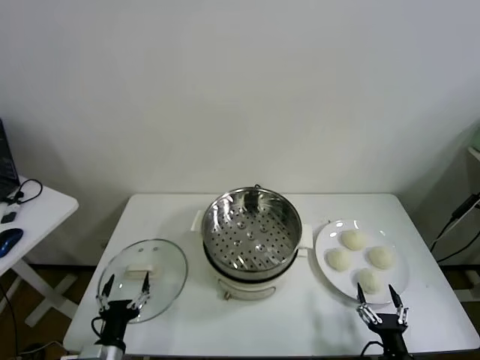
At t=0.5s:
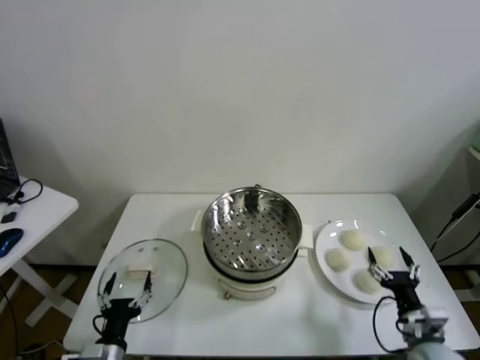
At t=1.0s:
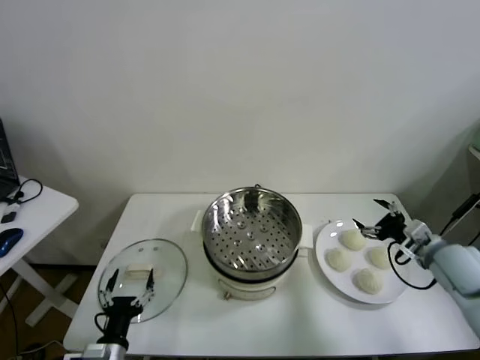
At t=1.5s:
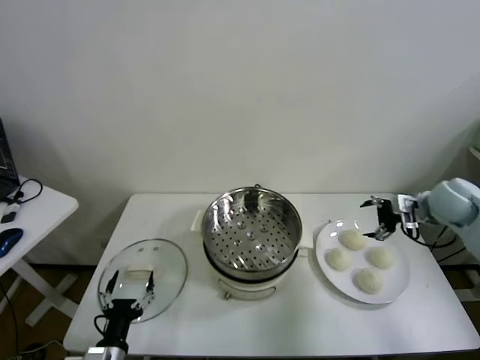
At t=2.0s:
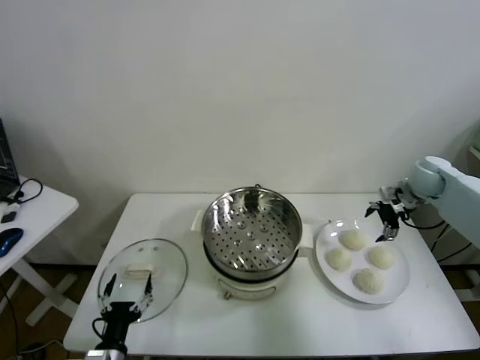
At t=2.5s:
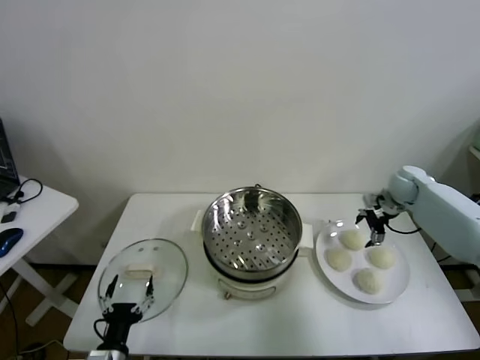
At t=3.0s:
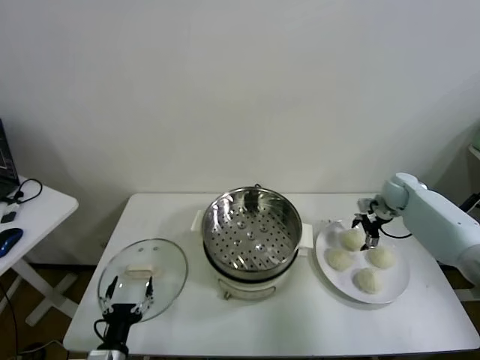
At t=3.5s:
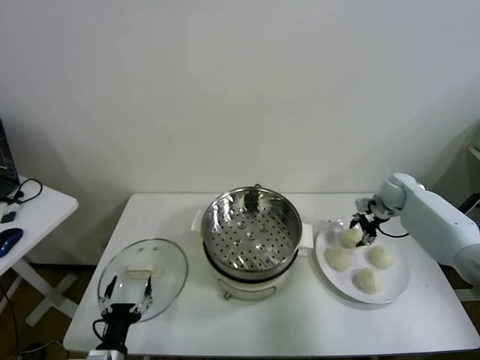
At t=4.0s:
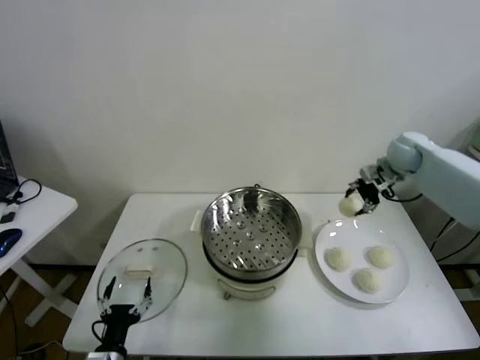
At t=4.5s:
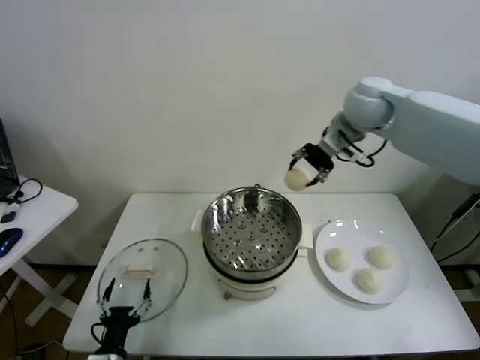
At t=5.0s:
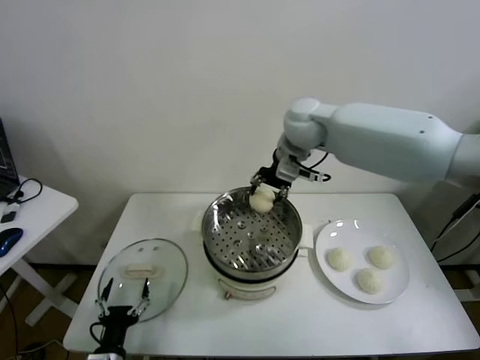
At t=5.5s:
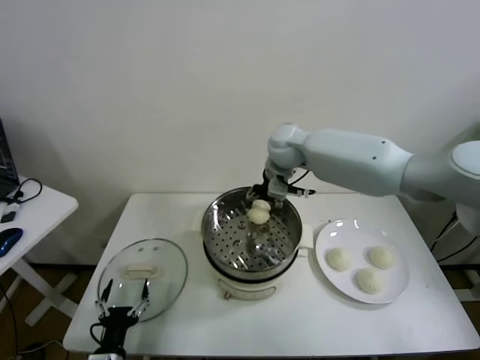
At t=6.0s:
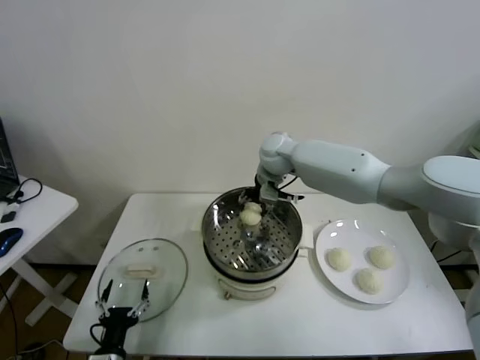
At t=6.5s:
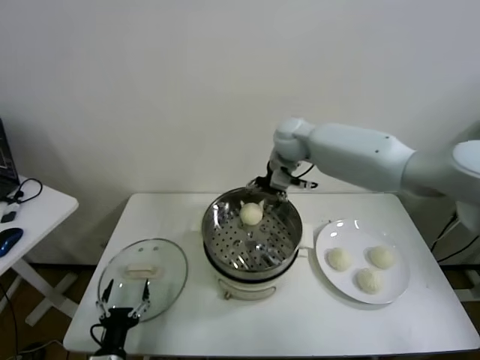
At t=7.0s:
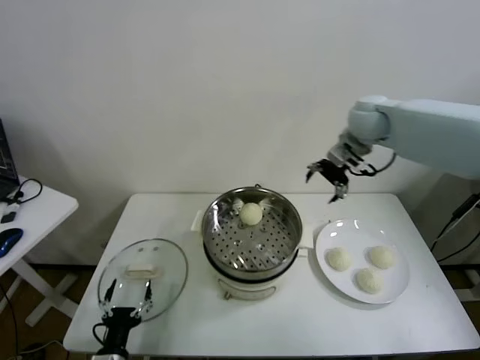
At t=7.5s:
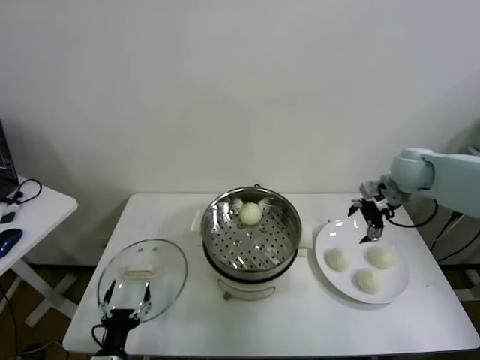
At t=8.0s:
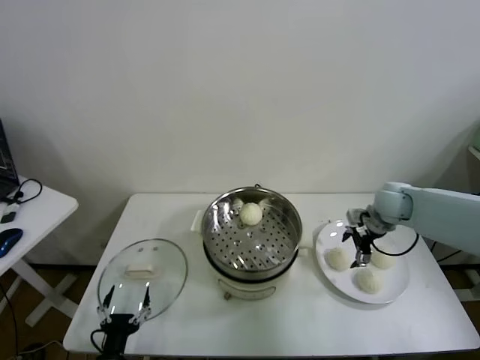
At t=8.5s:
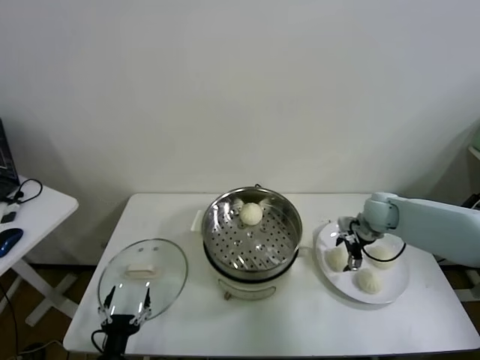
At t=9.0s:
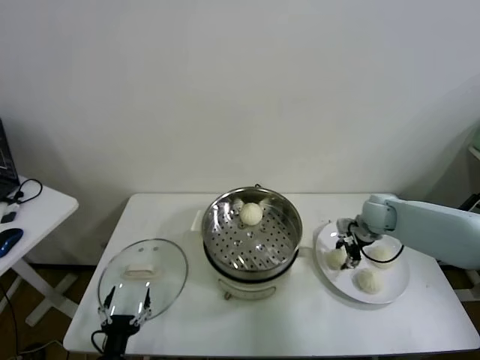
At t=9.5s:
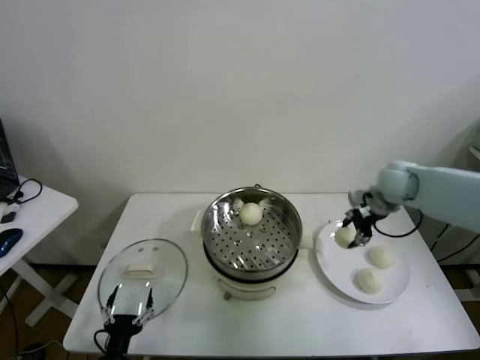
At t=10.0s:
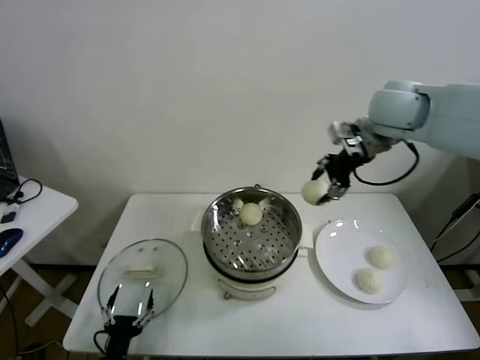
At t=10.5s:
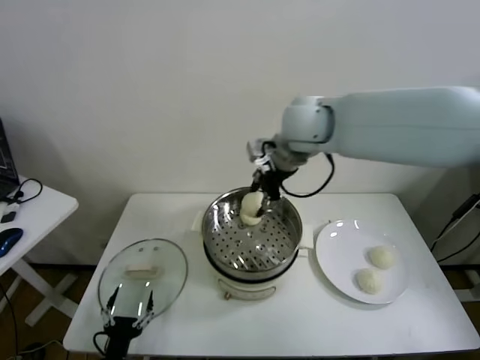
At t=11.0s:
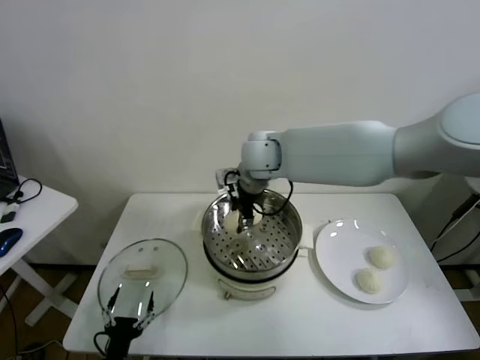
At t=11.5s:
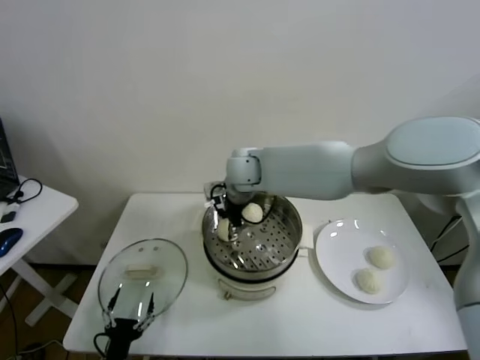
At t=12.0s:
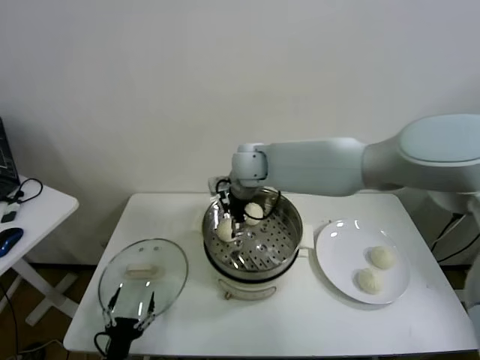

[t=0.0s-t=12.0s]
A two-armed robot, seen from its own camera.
Task of the whole recording: take steamed baozi put them in steamer.
Step, t=0.0s to t=3.5s: Grasp the baozi in the plate with right gripper.
Step, t=4.0s to t=6.0s: Place the baozi on the steamer with right gripper.
Step, t=6.5s to t=9.0s: Grasp the baozi in the plate with right gripper.
Step, t=9.5s to t=11.5s: Place the baozi on the steamer with right gripper.
t=2.0s to t=4.0s: The right gripper heads upward and to the left, covering some 15 cm, and closes.
t=4.0s to t=6.0s: The right gripper moves to the left, some 30 cm.
t=6.0s to t=8.0s: The right gripper shifts approximately 30 cm to the right, and opens up.
t=8.0s to t=10.0s: The right gripper moves upward and to the left, approximately 30 cm, and closes.
t=10.0s to t=12.0s: The right gripper heads to the left and downward, covering about 25 cm, and opens.

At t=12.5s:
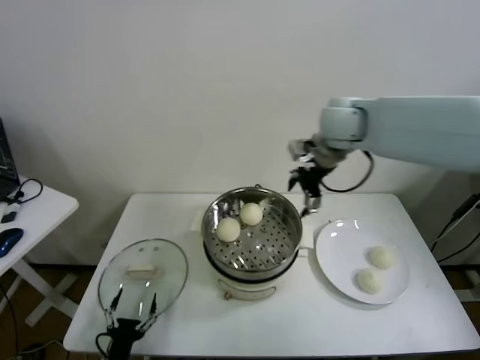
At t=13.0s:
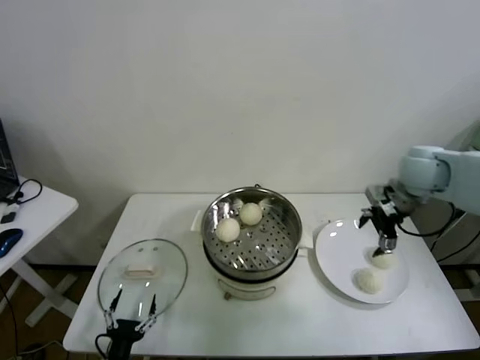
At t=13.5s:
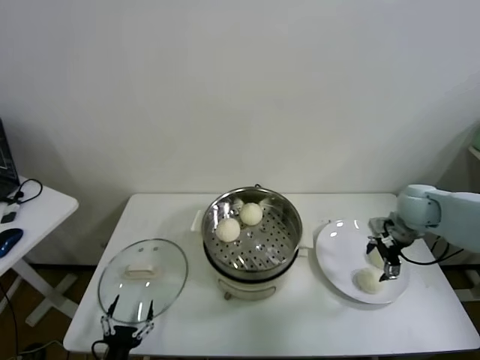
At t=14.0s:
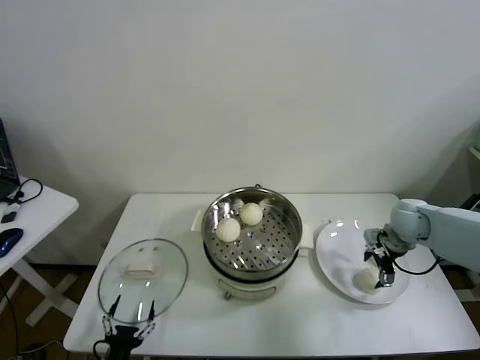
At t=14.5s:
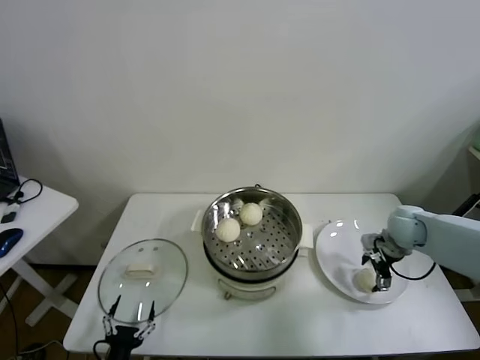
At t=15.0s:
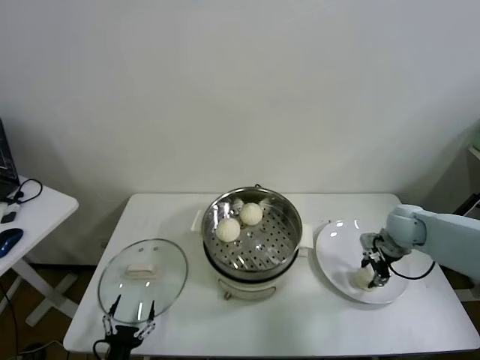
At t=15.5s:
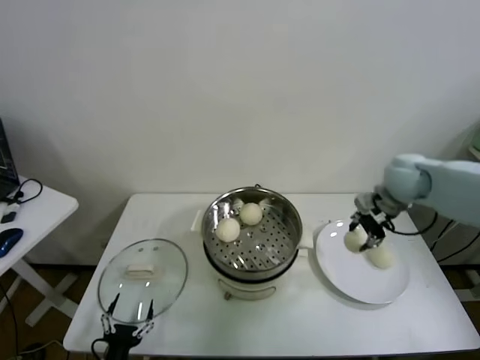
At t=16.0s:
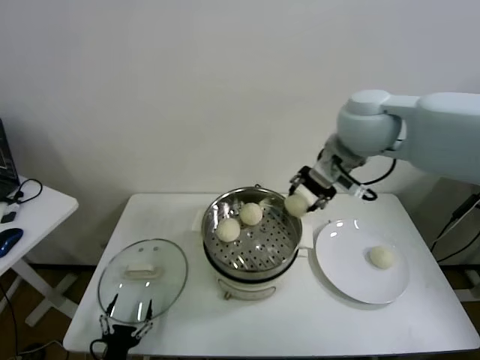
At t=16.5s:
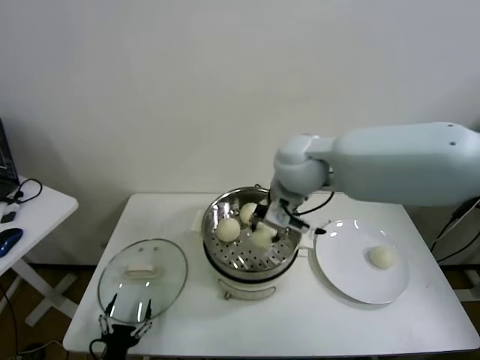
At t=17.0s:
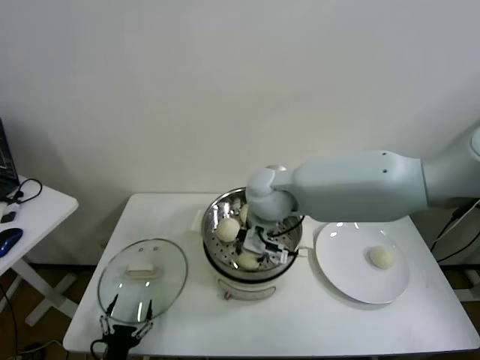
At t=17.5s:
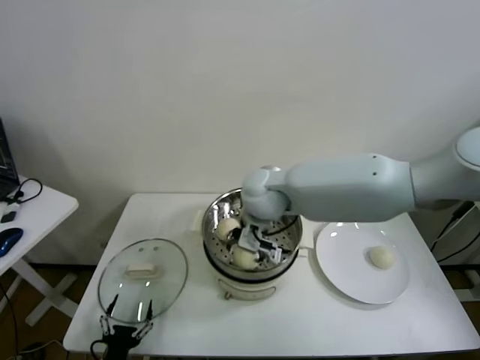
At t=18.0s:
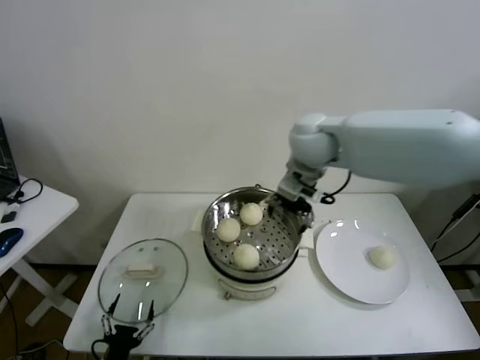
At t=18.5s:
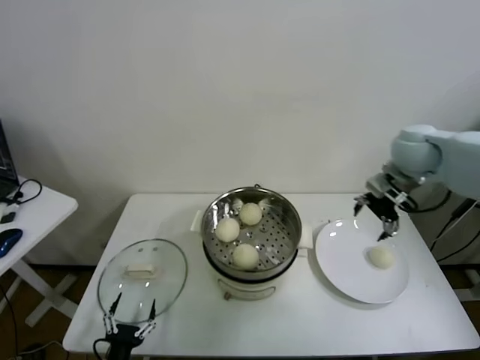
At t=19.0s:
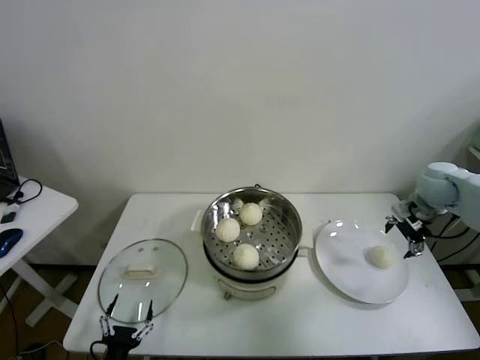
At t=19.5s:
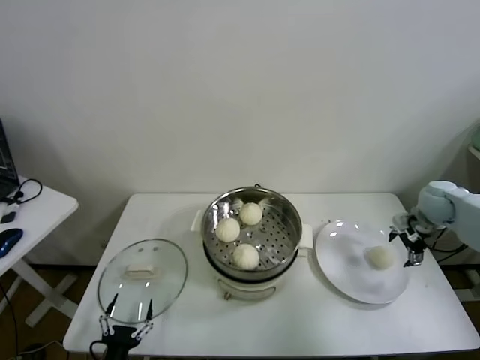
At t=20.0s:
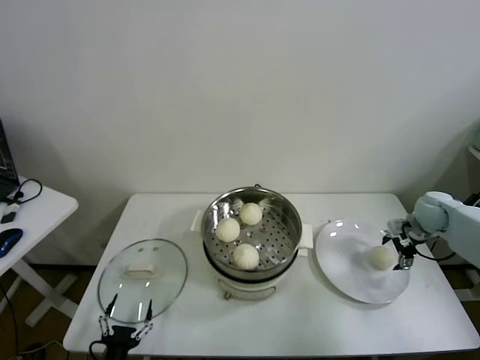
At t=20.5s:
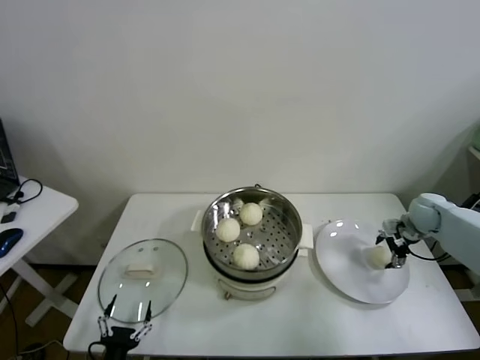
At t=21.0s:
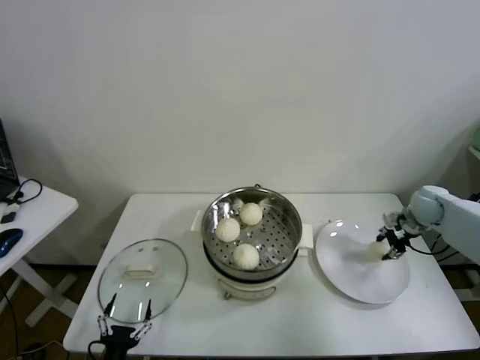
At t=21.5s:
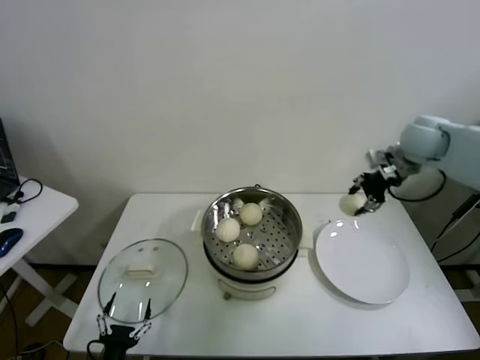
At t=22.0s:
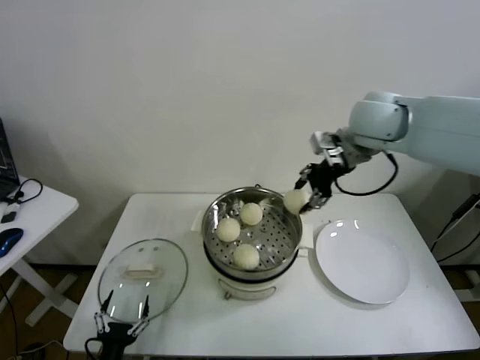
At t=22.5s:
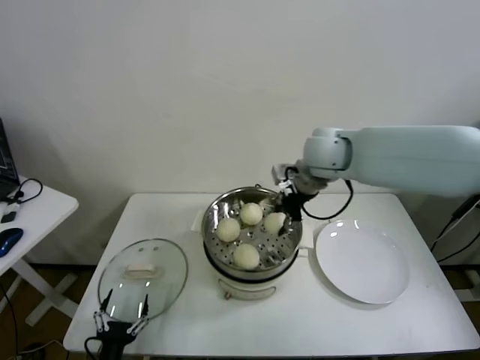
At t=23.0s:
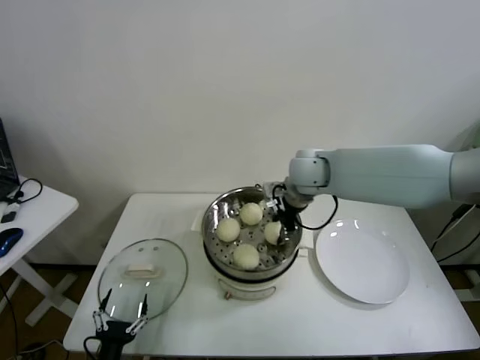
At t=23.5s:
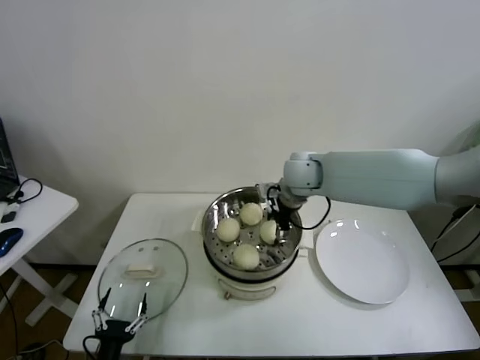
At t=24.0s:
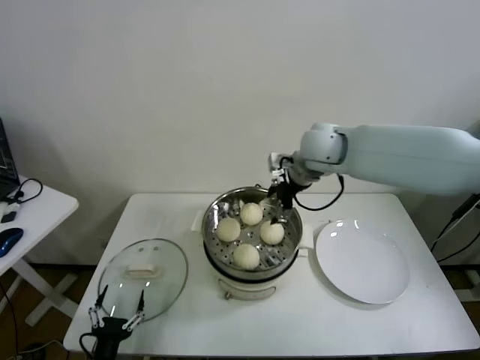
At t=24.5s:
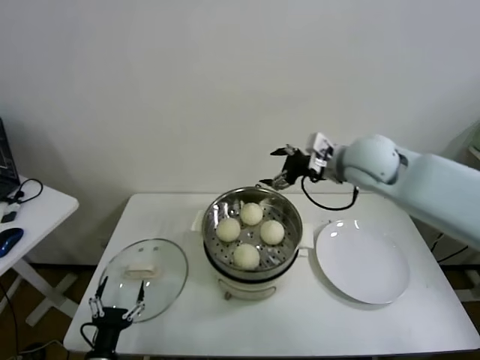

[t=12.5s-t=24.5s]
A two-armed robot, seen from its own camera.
Task of the whole recording: take steamed baozi put them in steamer.
Step, t=12.5s to t=15.0s: Grasp the baozi in the plate with right gripper.
Step, t=15.5s to t=17.5s: Place the baozi on the steamer with right gripper.
Step, t=18.0s to t=20.5s: Grasp the baozi in the plate with right gripper.
Step, t=21.0s to t=23.5s: Place the baozi on the steamer with right gripper.
t=12.5s to t=14.5s: The right gripper shifts about 30 cm downward and to the right.
t=14.5s to t=16.5s: The right gripper travels to the left and upward by roughly 35 cm, and closes up.
t=16.5s to t=18.5s: The right gripper shifts some 25 cm to the right, and opens.
t=18.5s to t=20.5s: The right gripper heads downward and to the right, covering some 25 cm.
t=20.5s to t=22.5s: The right gripper moves to the left and upward, roughly 40 cm, and closes up.
t=22.5s to t=24.5s: The right gripper moves to the right, approximately 5 cm, and opens its fingers.

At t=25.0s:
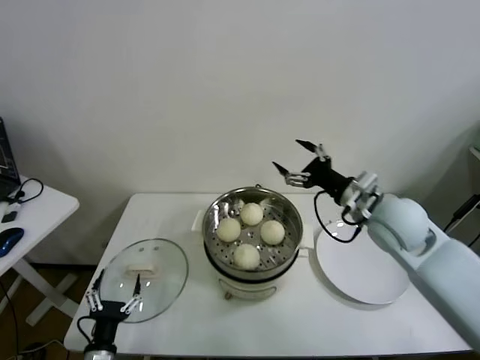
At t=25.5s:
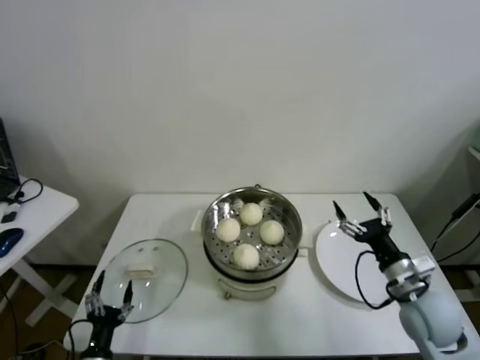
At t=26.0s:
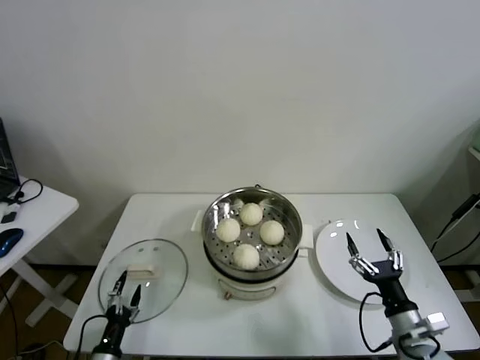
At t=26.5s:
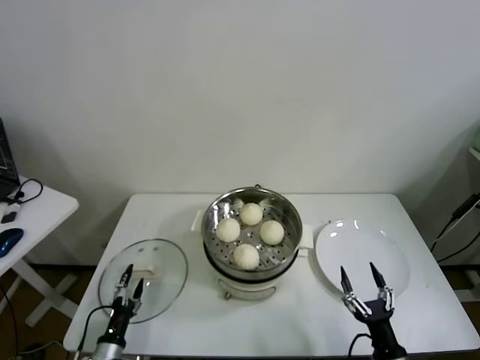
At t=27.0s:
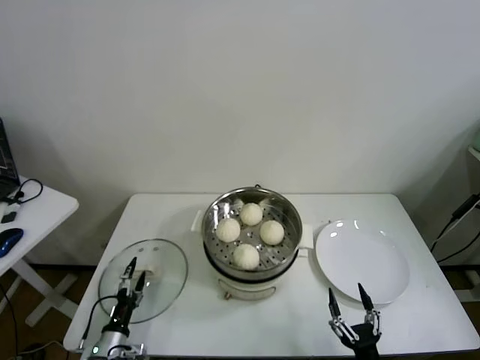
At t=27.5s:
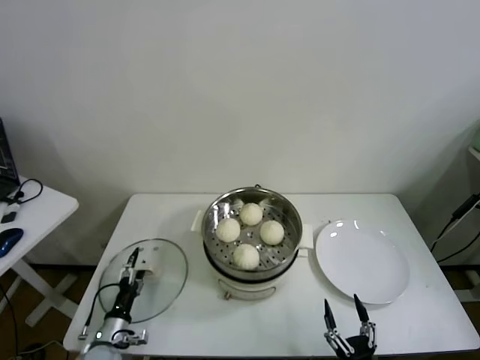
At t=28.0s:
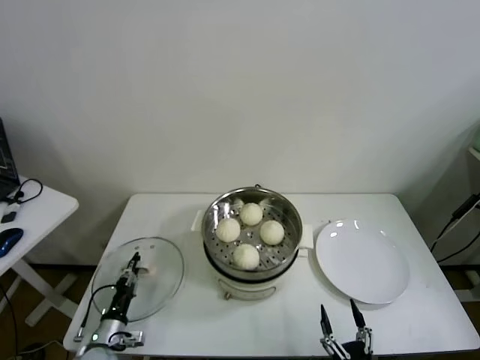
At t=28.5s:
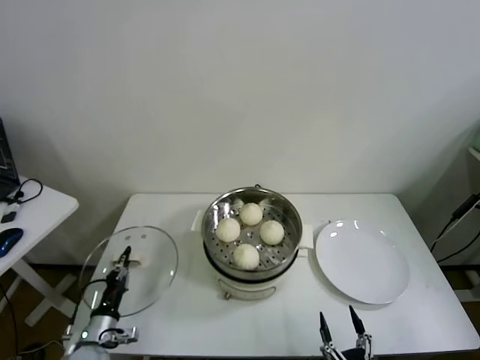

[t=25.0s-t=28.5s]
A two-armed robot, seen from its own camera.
Task of the whole recording: take steamed baozi put them in steamer.
Step, t=25.0s to t=28.0s: Grasp the pot lid with left gripper.
t=25.0s to t=27.0s: The left gripper moves downward, approximately 5 cm. The right gripper travels downward and backward by about 40 cm.
t=27.0s to t=28.5s: The right gripper changes place by roughly 5 cm. The left gripper closes its fingers.
